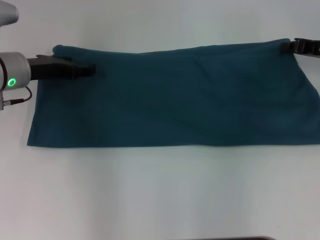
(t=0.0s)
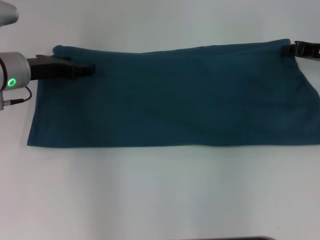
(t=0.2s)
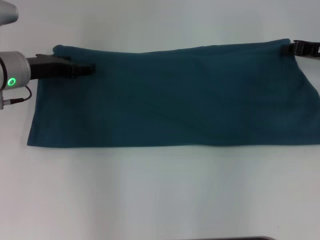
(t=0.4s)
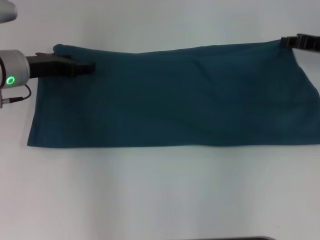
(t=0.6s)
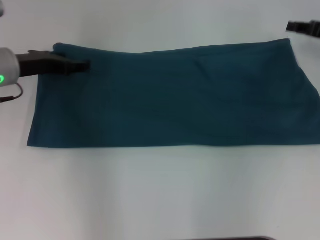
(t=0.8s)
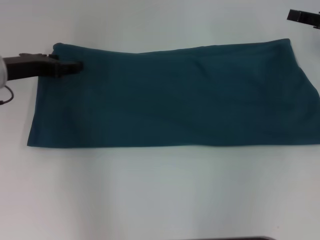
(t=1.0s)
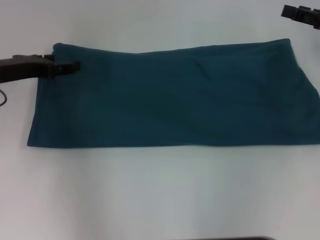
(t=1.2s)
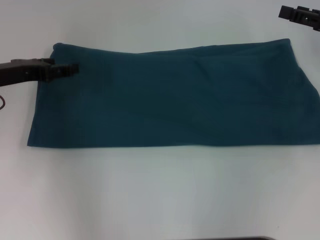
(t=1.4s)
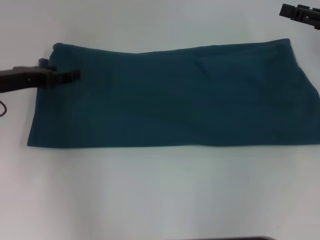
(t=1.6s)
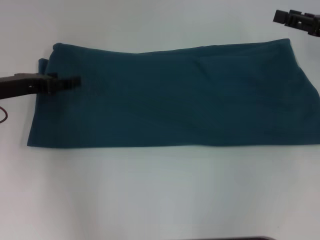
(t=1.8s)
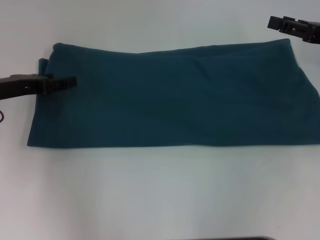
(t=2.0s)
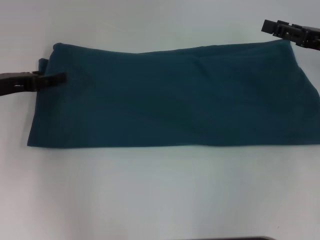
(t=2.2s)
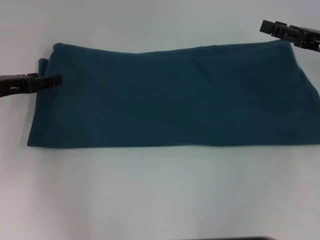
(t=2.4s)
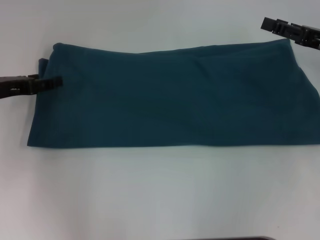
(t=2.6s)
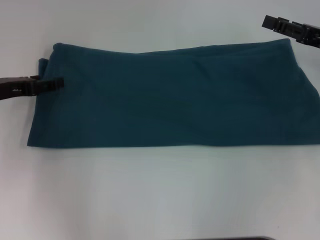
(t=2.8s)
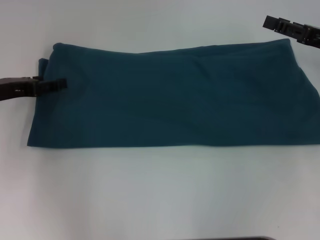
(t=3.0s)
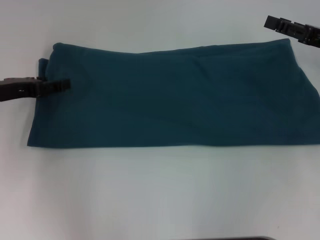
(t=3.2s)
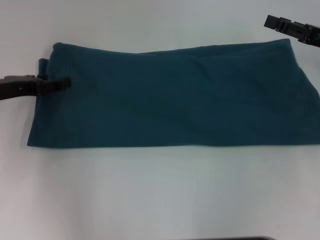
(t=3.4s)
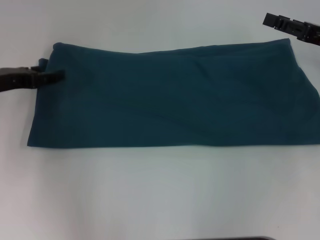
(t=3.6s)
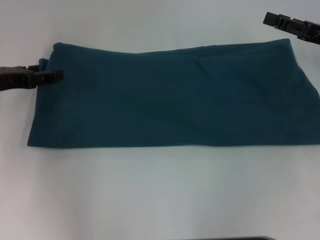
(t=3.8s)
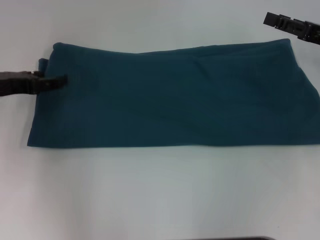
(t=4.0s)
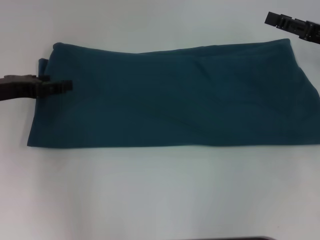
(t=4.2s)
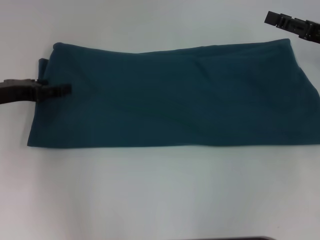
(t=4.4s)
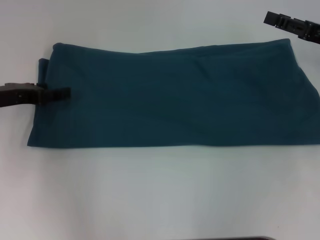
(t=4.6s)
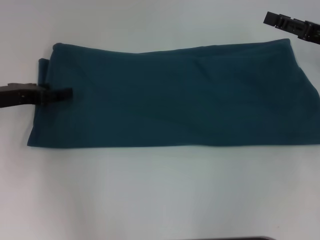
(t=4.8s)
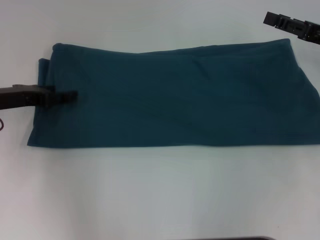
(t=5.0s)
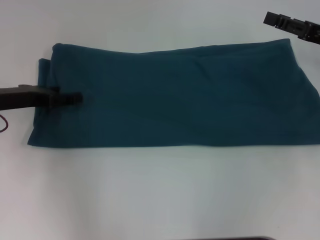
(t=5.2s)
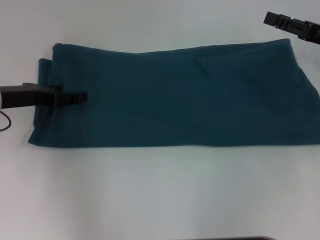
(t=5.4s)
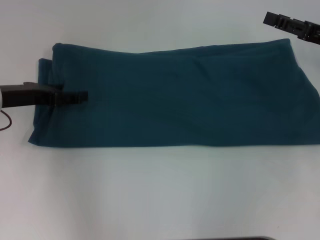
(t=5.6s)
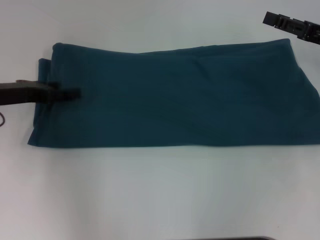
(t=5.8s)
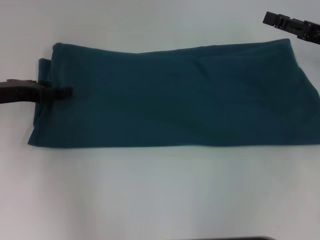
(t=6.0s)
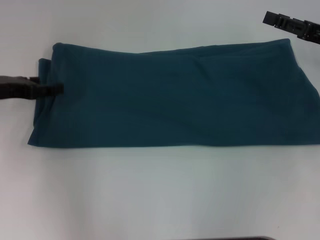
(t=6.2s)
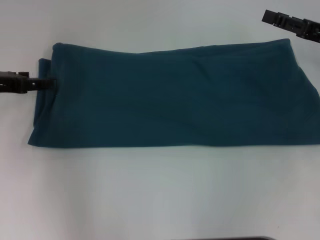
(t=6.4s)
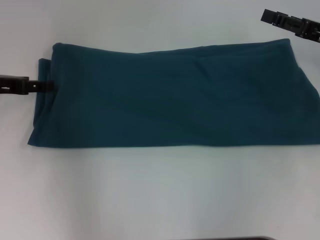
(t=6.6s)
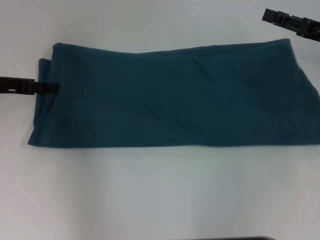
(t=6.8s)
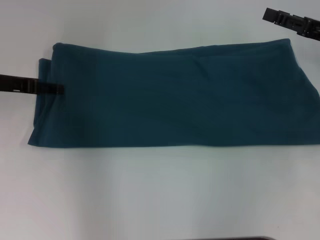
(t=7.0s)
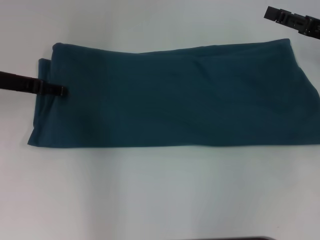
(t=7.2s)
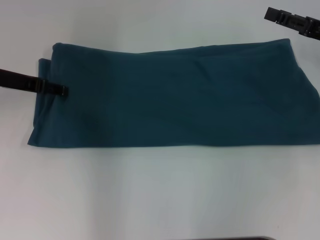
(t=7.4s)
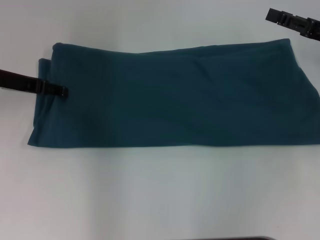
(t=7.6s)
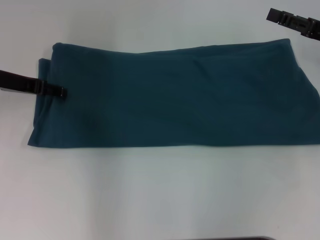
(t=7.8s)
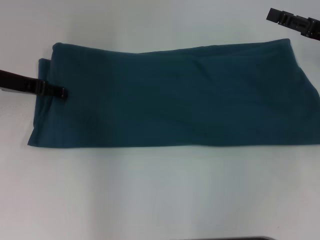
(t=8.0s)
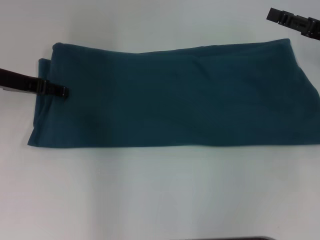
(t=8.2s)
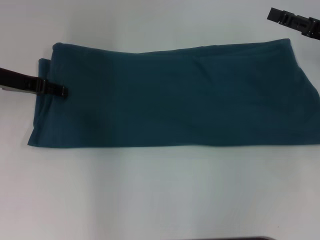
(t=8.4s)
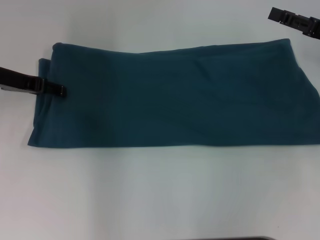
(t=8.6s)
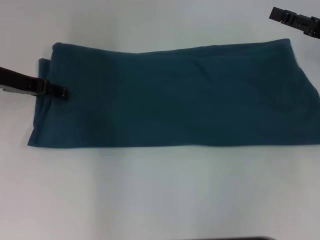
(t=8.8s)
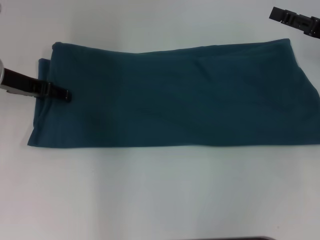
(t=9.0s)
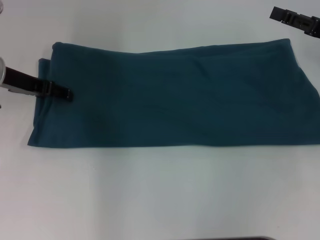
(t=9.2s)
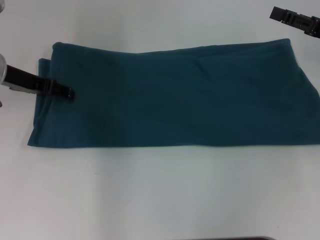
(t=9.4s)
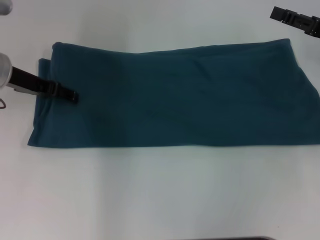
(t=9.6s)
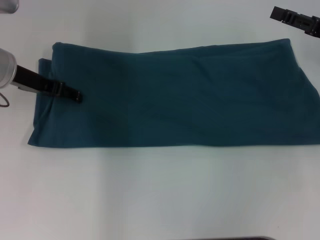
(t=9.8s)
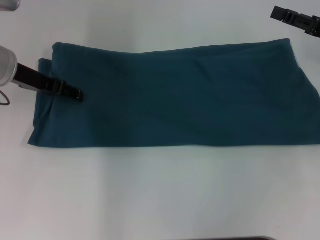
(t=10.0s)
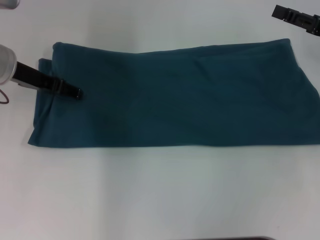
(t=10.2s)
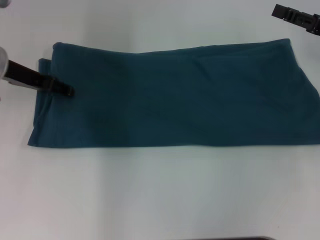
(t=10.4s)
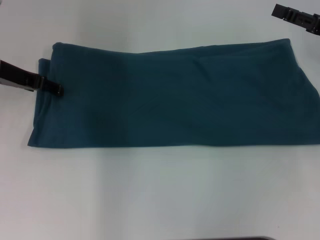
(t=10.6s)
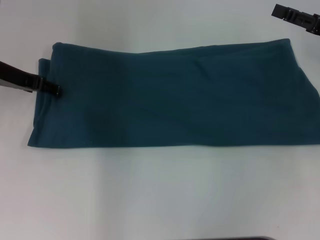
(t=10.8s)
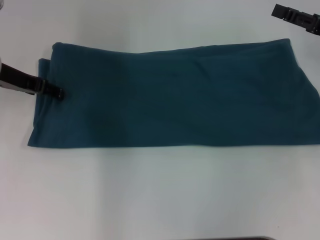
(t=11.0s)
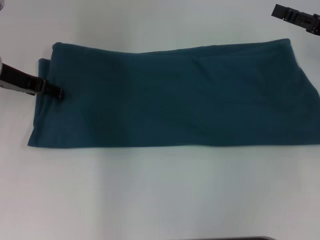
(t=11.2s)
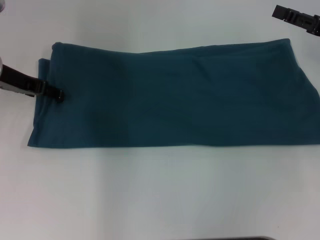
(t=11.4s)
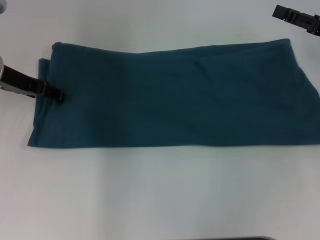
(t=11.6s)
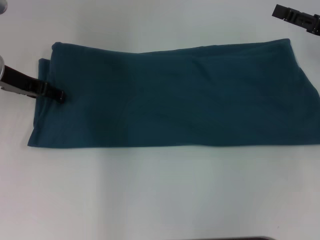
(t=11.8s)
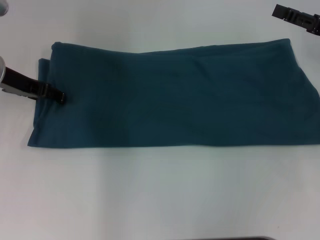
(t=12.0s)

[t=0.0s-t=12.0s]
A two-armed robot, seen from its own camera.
t=0.0s to t=1.6s: The right gripper changes place by roughly 5 cm, and opens up, while the left gripper shifts by approximately 5 cm.
t=1.6s to t=4.4s: The grippers make only small movements.
t=6.0s to t=7.6s: The left gripper changes place by some 5 cm.
t=7.6s to t=10.4s: The grippers move only a little.
t=10.4s to t=12.0s: Both grippers stay put.

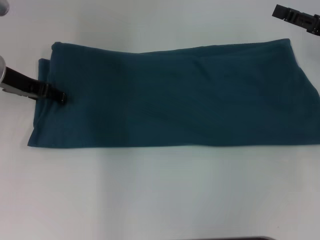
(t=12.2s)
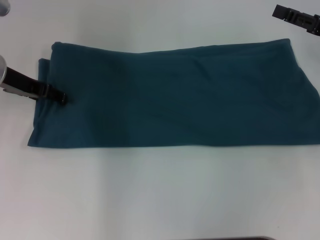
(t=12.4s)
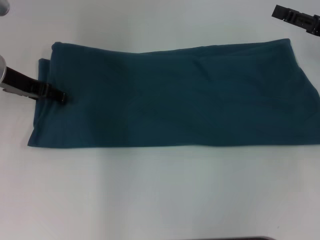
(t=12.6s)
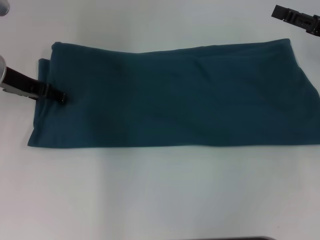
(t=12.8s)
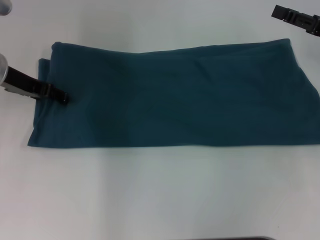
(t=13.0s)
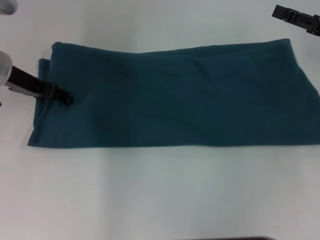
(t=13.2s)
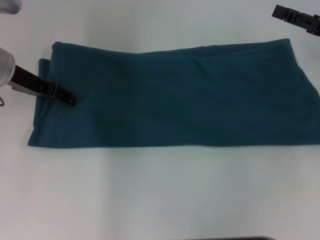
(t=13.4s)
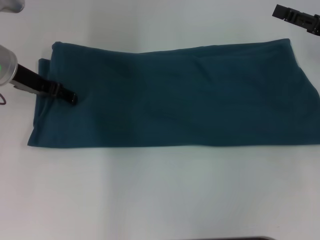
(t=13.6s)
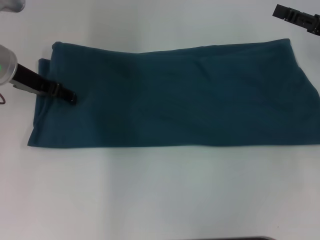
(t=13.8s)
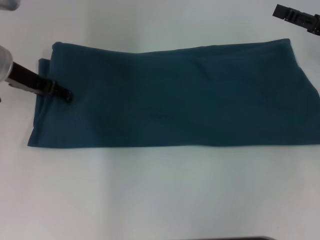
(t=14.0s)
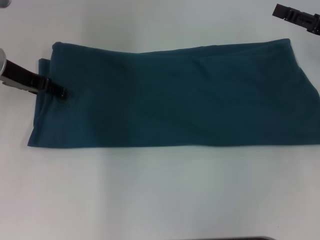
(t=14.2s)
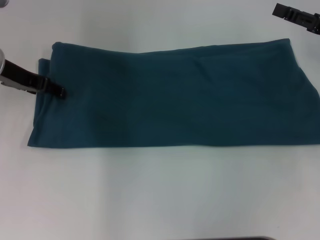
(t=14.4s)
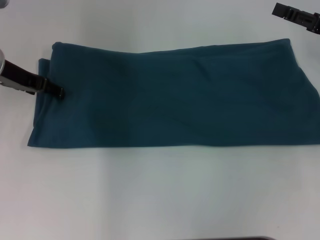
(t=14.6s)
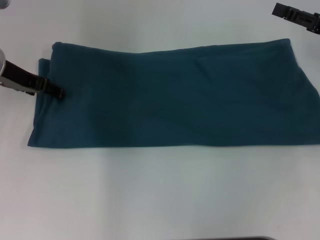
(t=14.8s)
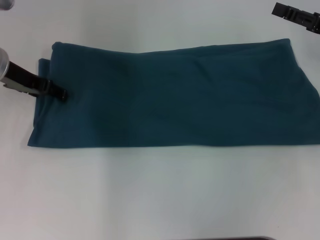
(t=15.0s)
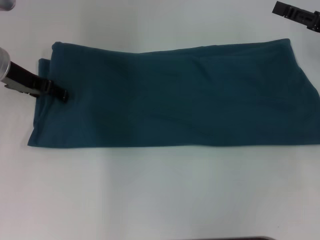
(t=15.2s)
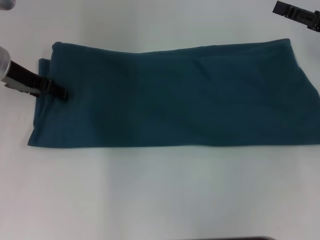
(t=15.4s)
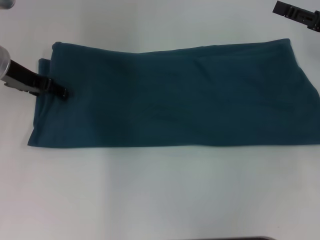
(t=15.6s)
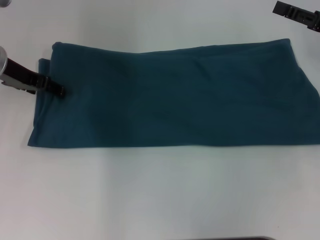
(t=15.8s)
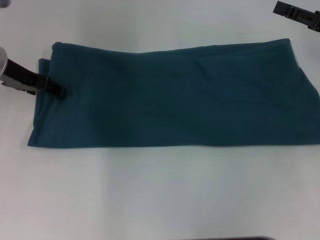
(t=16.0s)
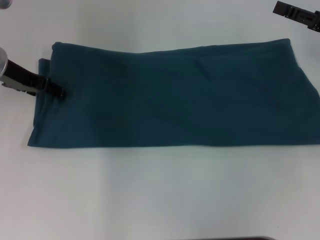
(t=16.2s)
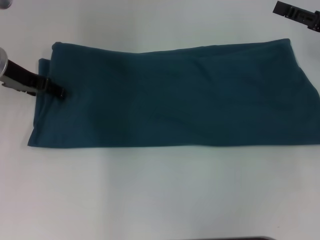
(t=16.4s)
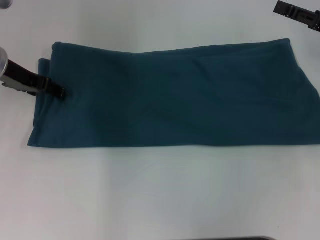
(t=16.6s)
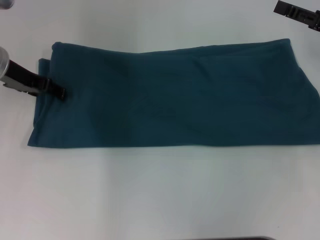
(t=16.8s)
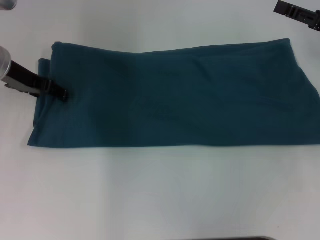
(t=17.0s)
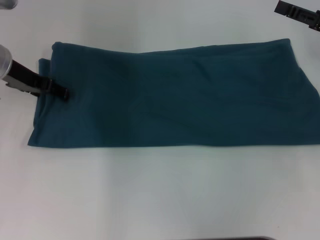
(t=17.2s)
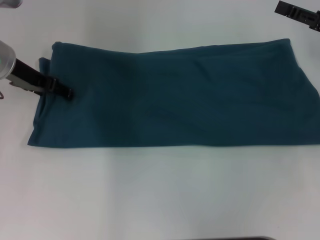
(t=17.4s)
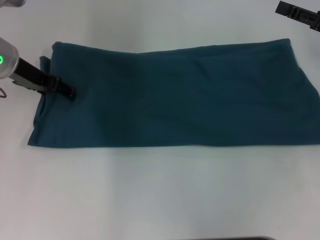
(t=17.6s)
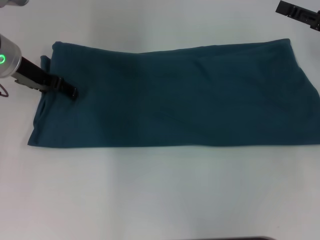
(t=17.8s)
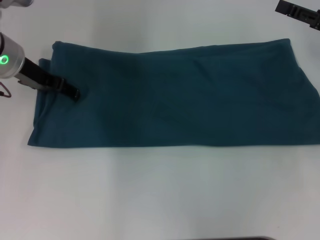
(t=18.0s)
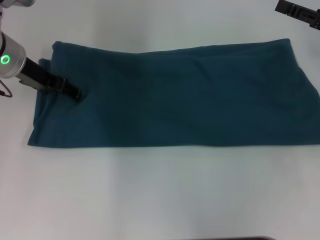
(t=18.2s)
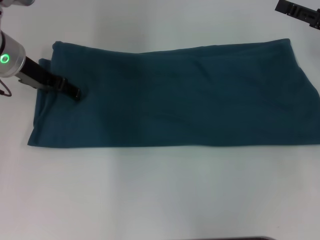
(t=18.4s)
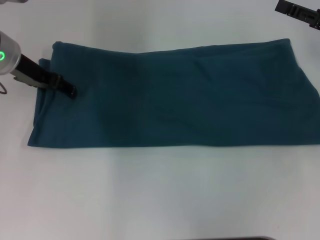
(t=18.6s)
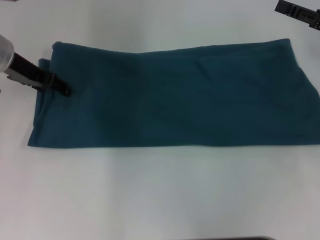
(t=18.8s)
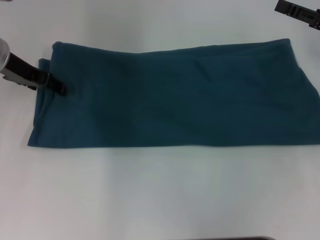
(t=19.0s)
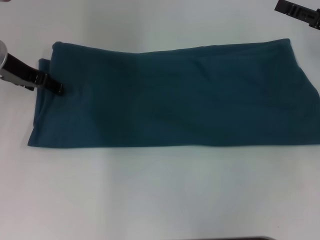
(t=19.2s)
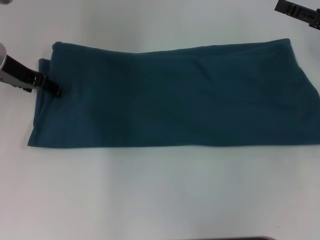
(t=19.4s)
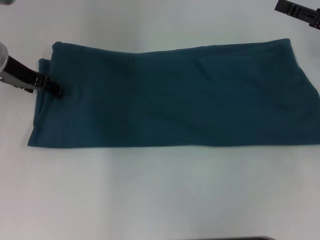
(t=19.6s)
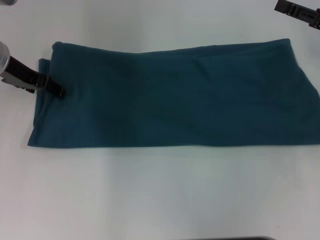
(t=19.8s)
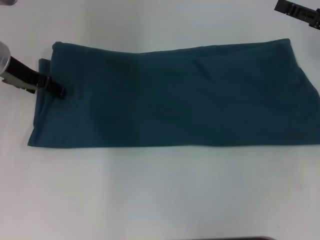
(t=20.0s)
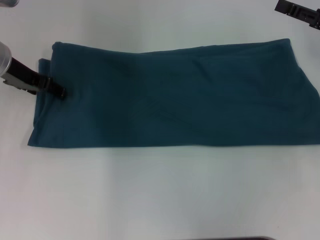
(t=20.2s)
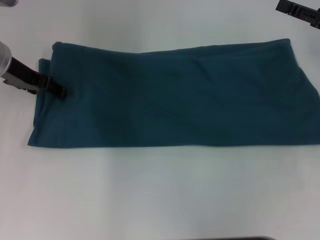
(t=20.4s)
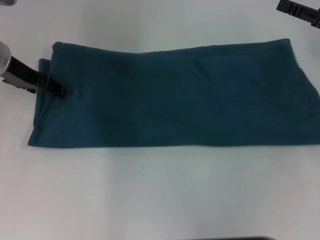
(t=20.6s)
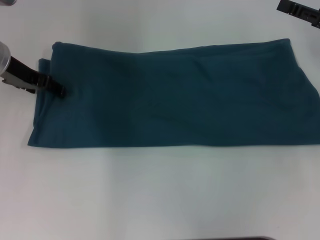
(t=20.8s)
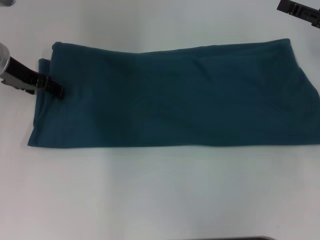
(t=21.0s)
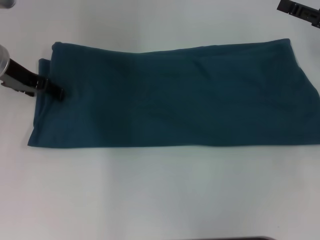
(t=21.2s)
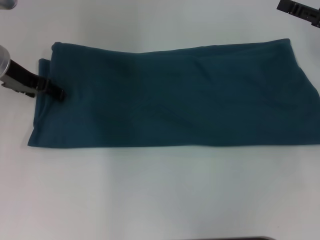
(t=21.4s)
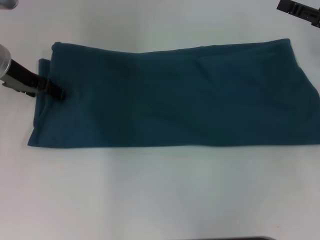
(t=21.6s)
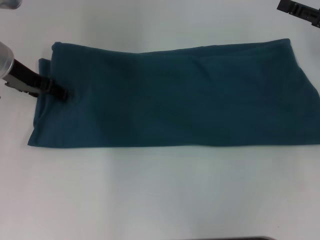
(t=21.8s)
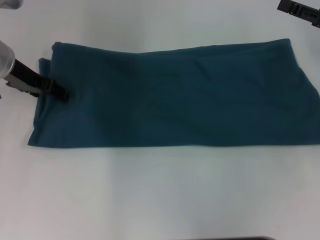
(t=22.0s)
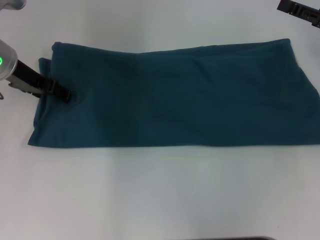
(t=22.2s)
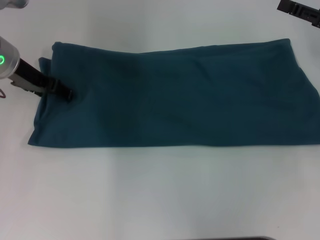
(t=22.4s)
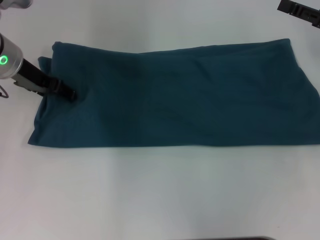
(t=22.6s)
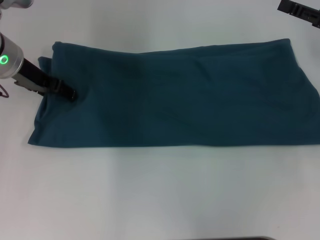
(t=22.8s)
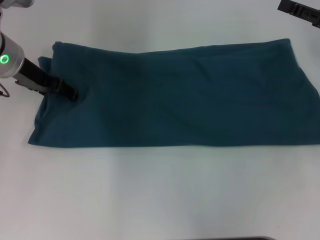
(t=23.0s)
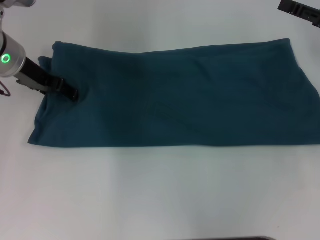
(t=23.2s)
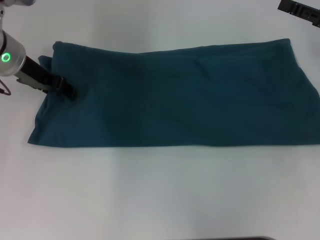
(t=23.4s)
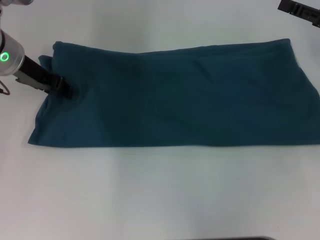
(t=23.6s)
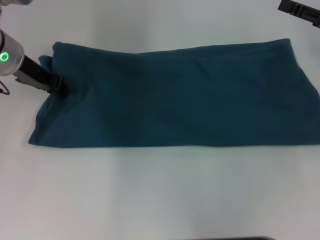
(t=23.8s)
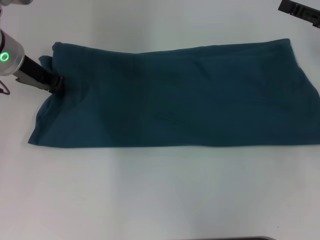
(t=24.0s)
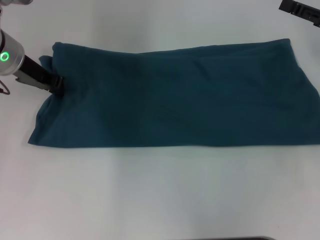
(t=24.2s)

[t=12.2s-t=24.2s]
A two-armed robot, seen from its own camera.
t=12.2s to t=15.2s: The grippers stay close to where they were, moving slightly.
t=15.2s to t=16.6s: Neither gripper changes place.
t=16.6s to t=19.8s: The grippers make only small movements.
t=19.8s to t=21.2s: Both grippers stay put.
t=21.2s to t=22.6s: The grippers stay close to where they were, moving slightly.
t=22.6s to t=24.2s: The left gripper closes.
